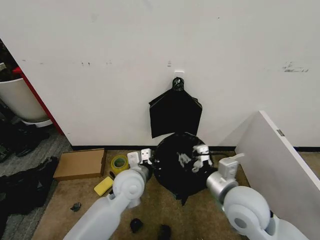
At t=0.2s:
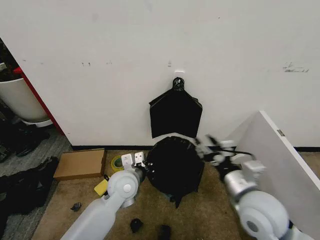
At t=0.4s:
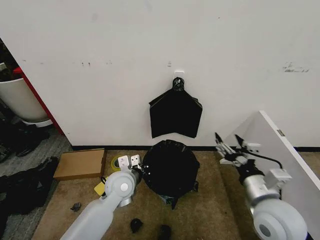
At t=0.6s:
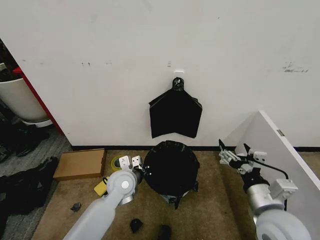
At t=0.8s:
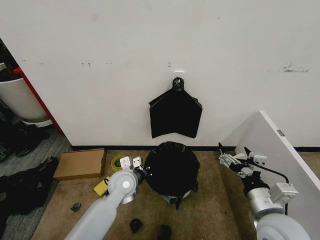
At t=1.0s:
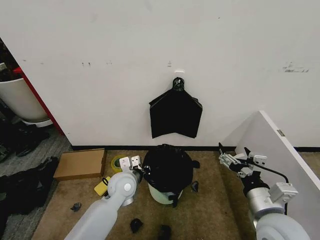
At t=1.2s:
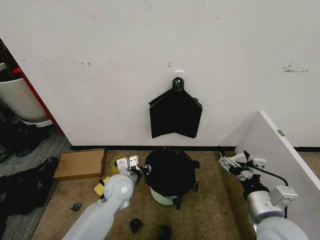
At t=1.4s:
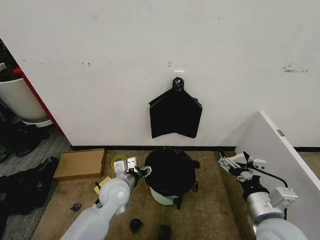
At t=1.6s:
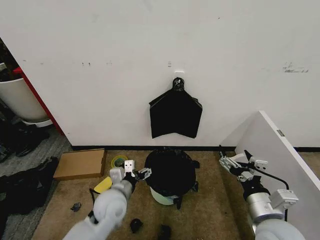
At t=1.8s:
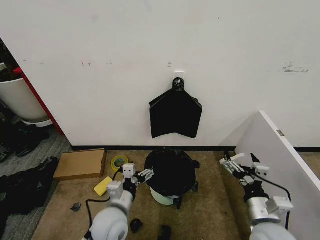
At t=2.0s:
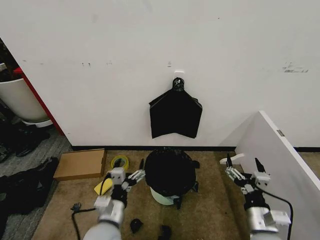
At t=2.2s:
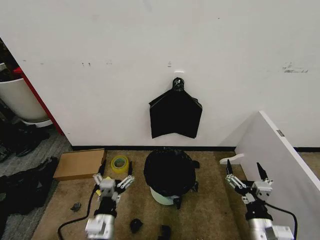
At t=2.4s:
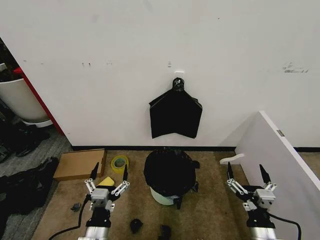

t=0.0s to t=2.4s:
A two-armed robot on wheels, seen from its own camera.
Task of the whole recording: Place the garbage bag over the trash bin.
t=0.0s to t=1.2s: The right gripper travels to the right and backward by roughly 10 cm, and opens up; the left gripper ends up some 5 cm from where it was, and opens up.
t=1.2s to t=2.4s: The right gripper goes about 10 cm downward and backward. Meanwhile the left gripper moves backward, some 20 cm, and opens up.
